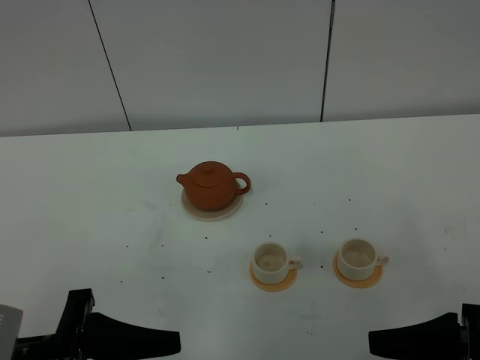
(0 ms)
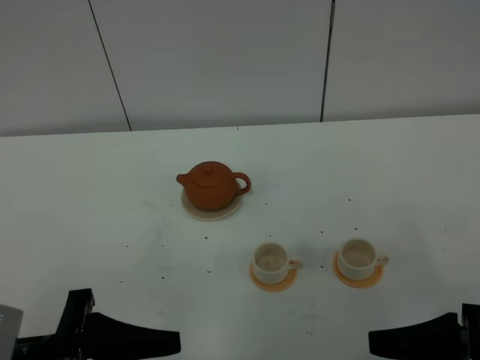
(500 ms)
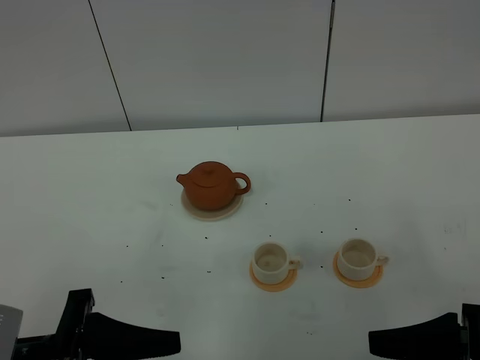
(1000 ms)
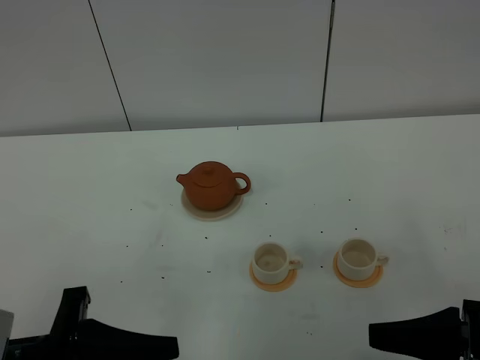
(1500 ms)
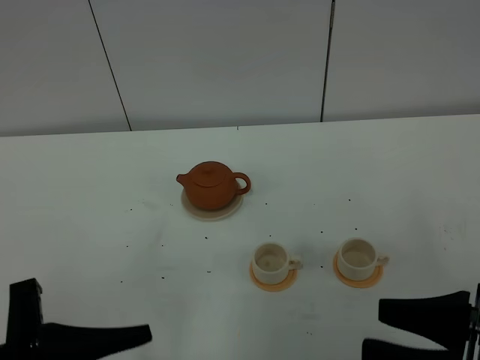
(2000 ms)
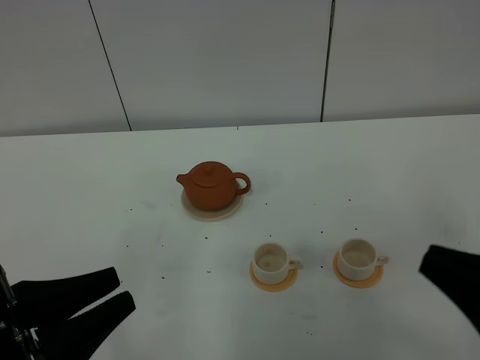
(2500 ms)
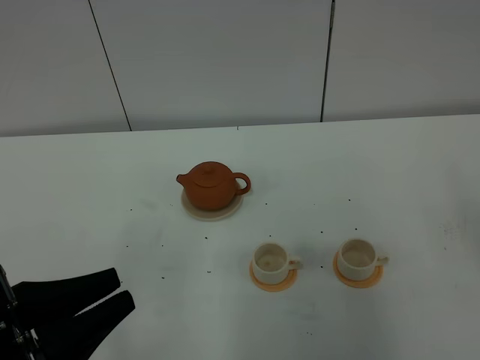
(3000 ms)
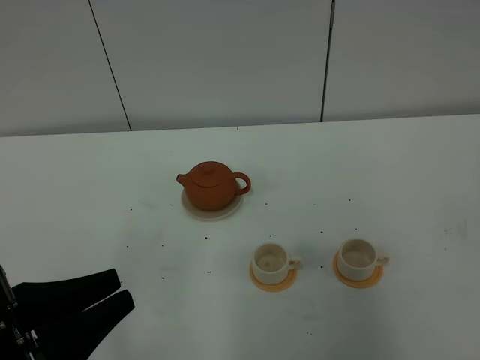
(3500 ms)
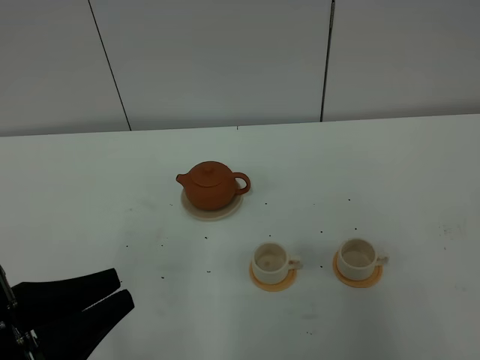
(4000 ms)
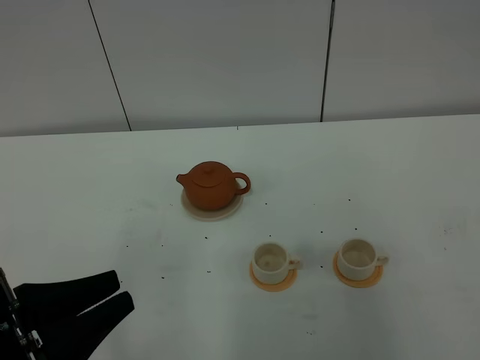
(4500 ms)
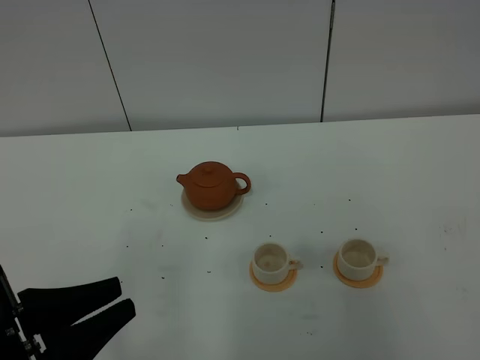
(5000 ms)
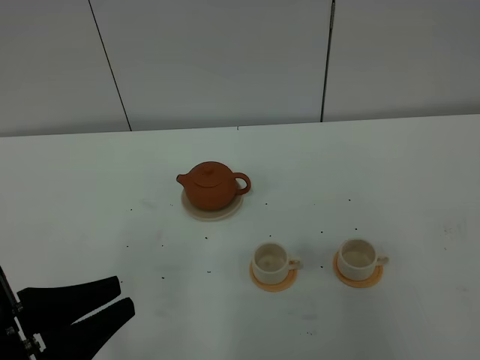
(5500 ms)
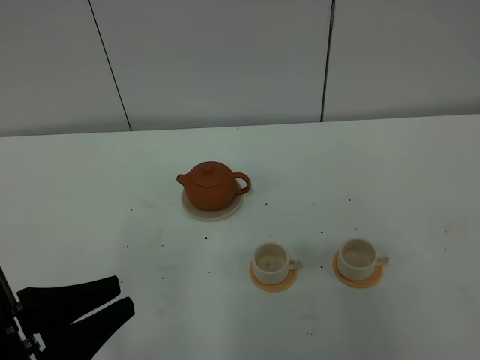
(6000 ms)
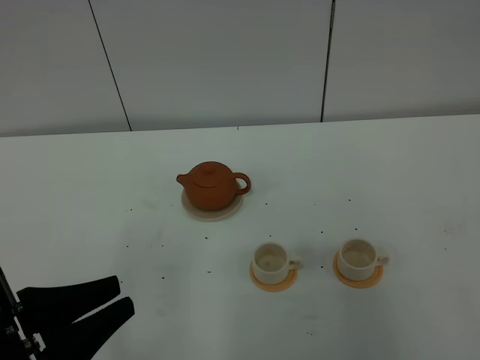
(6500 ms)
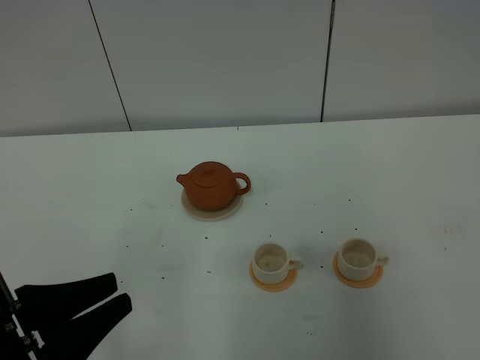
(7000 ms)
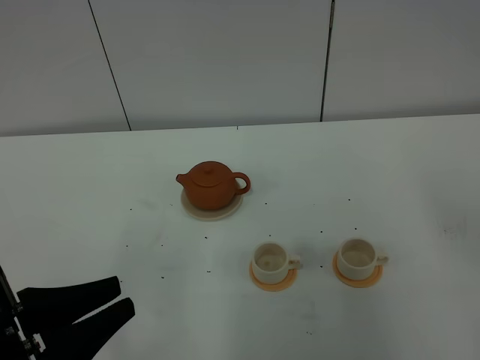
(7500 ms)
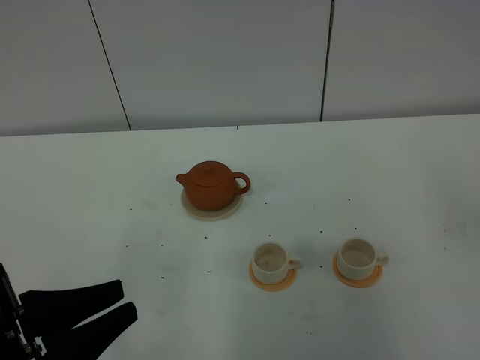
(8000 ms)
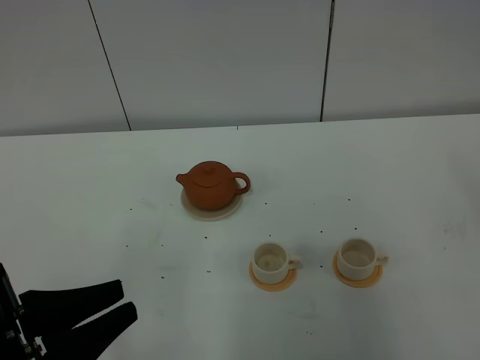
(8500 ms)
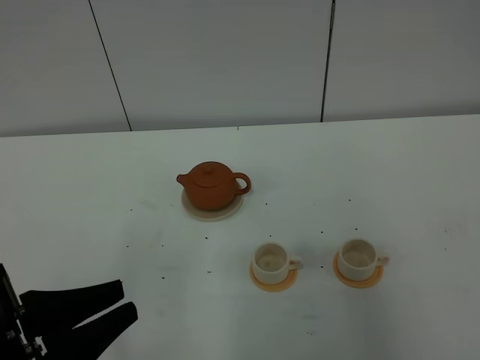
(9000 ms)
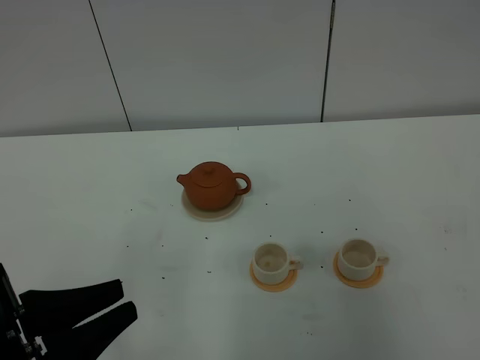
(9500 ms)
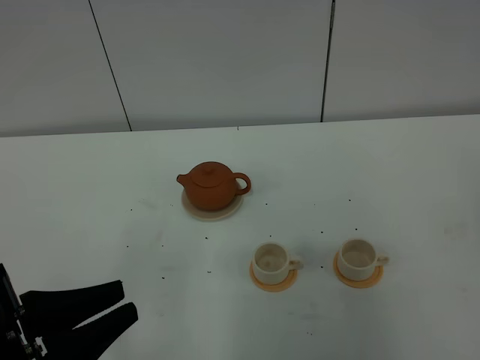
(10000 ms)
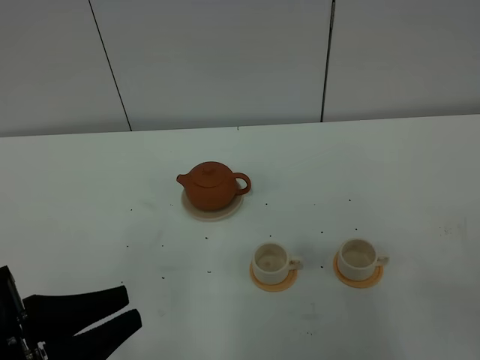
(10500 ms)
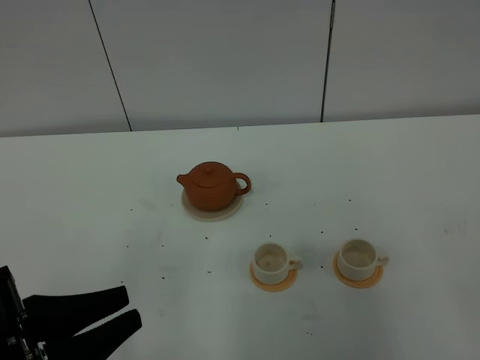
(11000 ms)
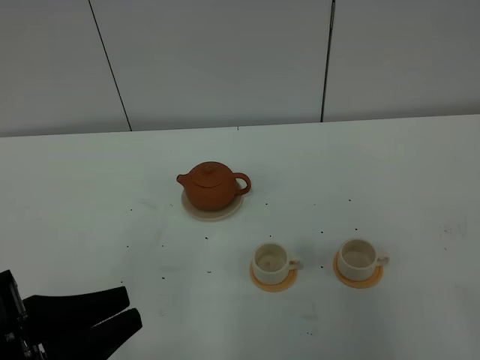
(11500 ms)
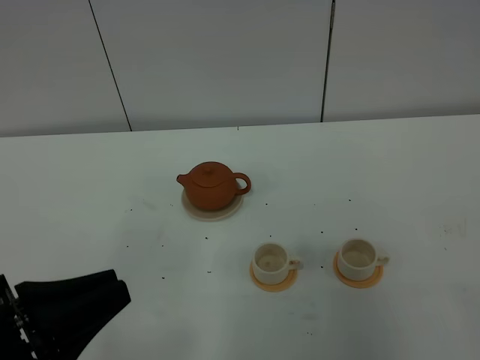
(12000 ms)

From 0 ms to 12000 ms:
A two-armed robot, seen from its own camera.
Task of the whole recording: grasp the brown teapot and pour the tea into the two white teacups one by one, put the brown teapot back in its original place.
From 0 ms to 2000 ms: The grippers stay close to where they were, moving slightly.
From 2000 ms to 4000 ms: The right gripper travels to the right and upward by about 15 cm, and closes.

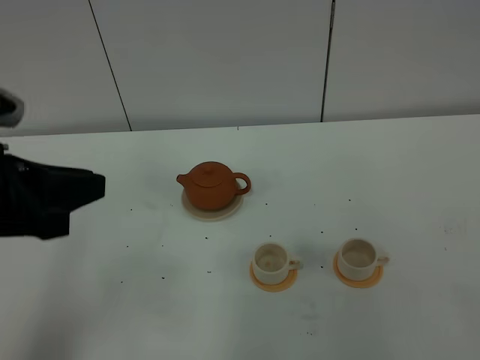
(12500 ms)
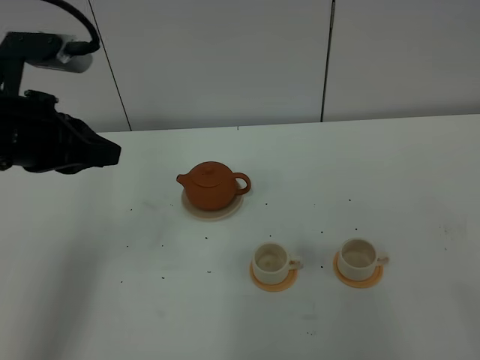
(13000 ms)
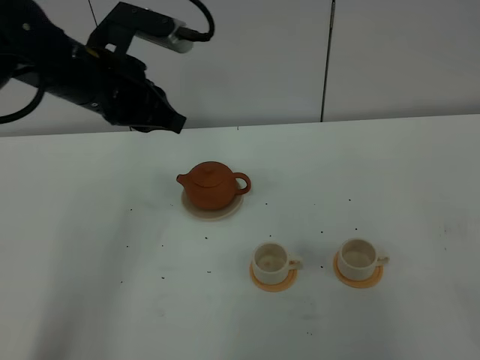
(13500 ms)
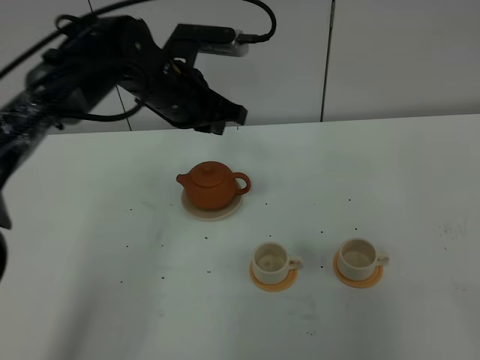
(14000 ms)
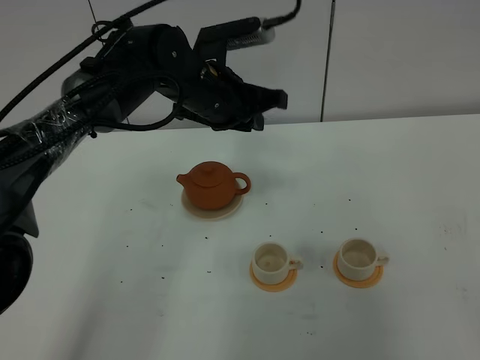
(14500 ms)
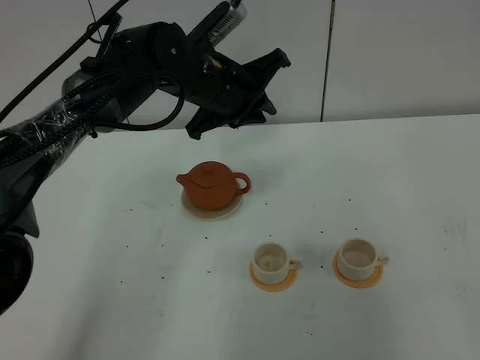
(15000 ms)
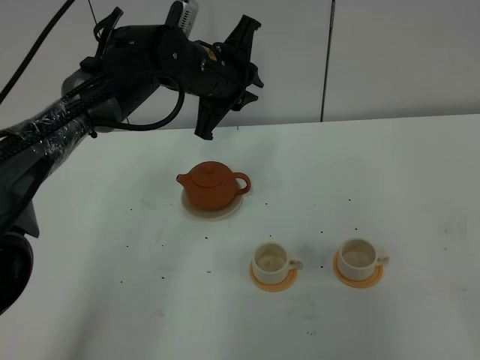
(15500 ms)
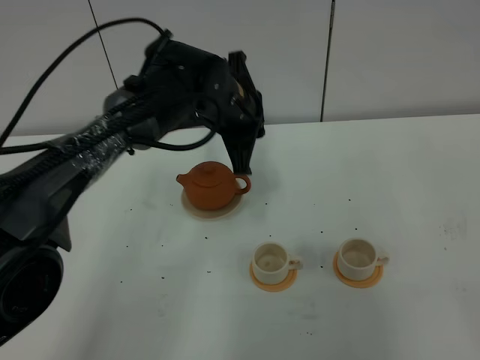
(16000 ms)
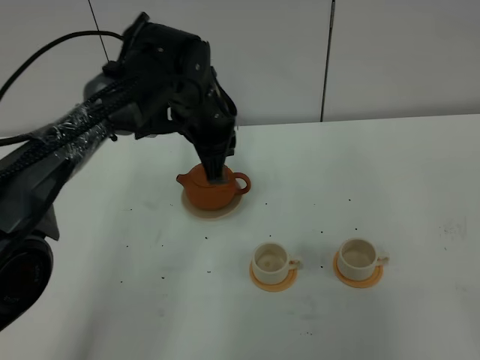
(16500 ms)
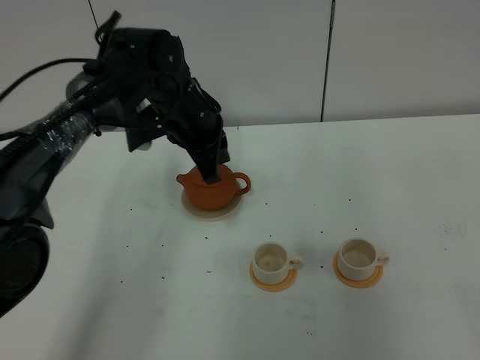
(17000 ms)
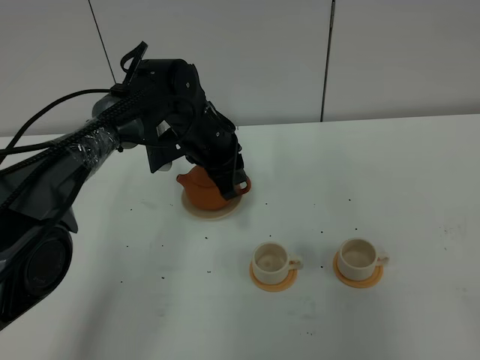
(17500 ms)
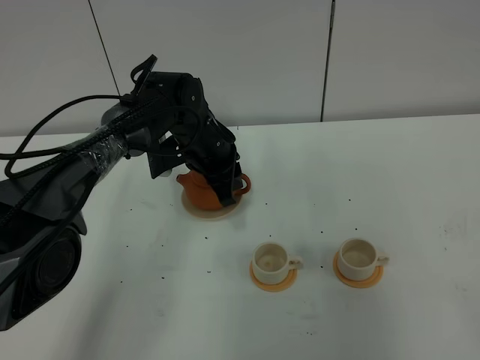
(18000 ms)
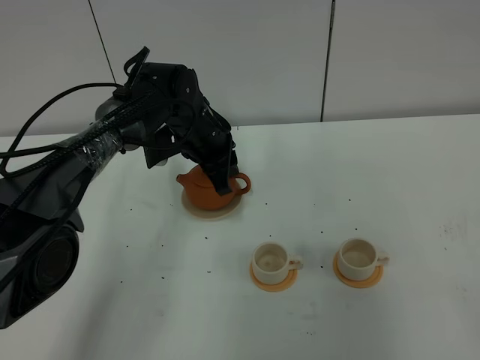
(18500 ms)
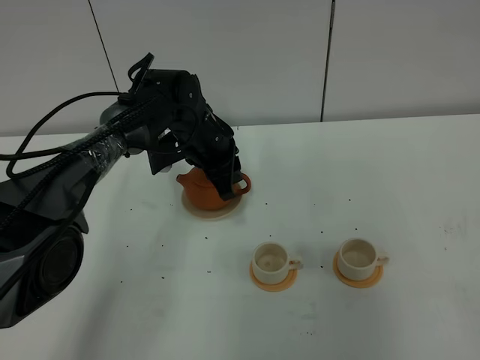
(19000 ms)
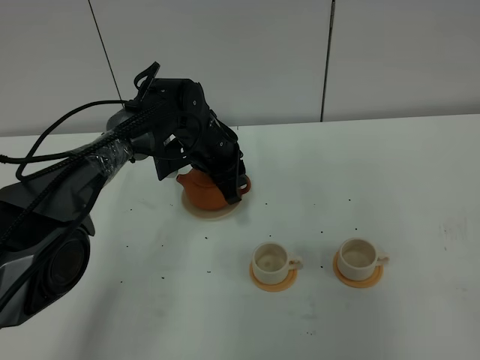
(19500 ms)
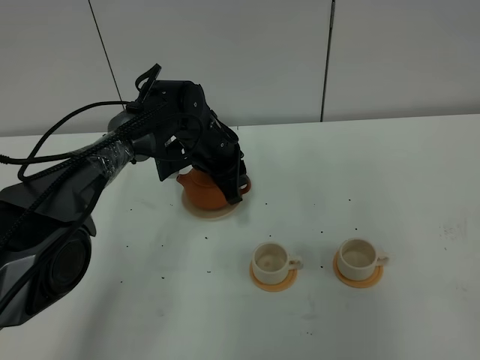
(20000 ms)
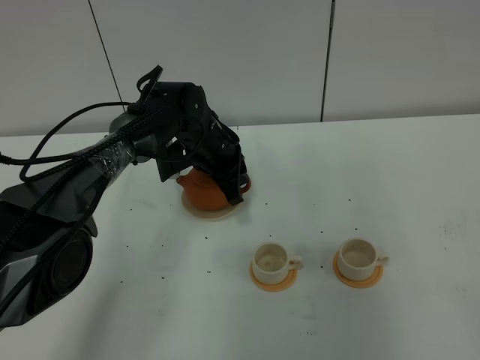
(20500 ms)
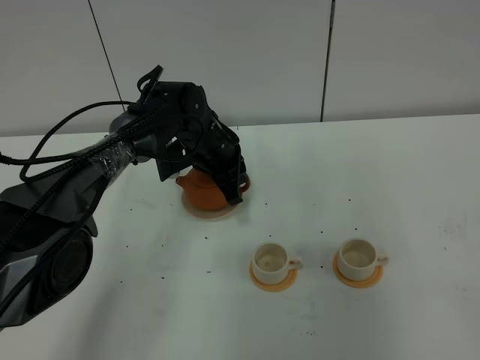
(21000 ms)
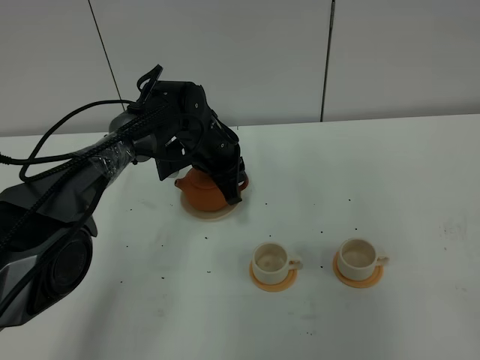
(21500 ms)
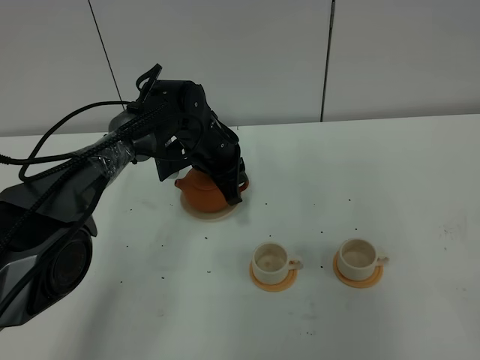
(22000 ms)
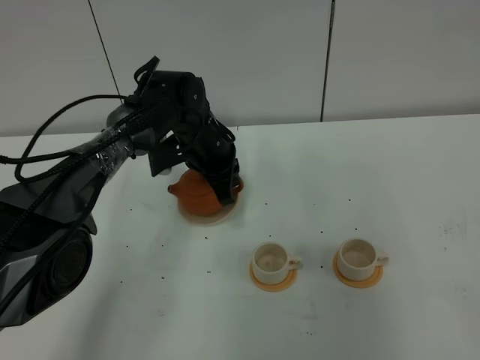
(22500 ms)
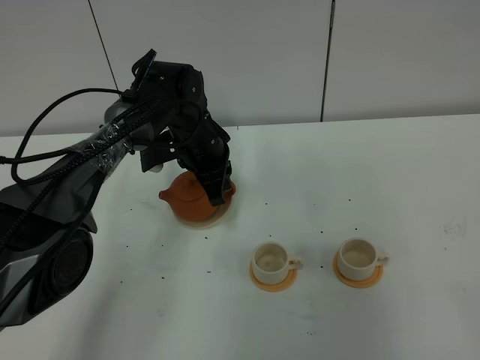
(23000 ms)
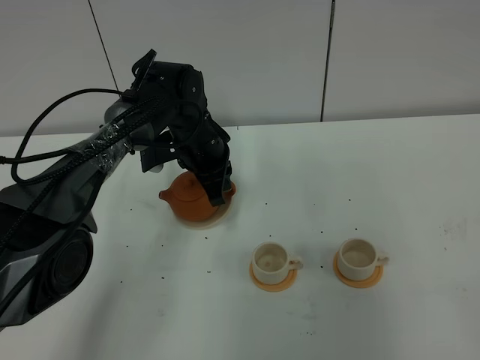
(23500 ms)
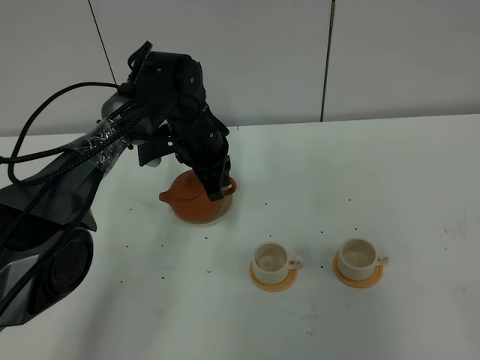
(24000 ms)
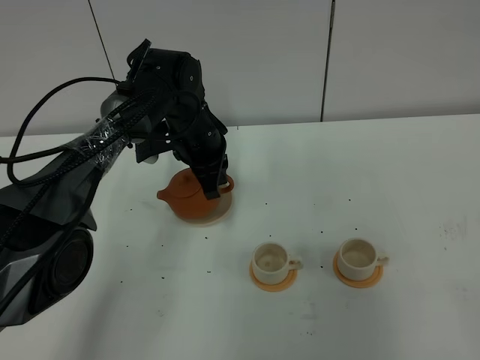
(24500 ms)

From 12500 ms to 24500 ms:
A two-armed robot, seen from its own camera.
Task of the whole recording: grasp the brown teapot and pour the tea into the two white teacups one by one, put the brown teapot back in its original place.
From 12500 ms to 14500 ms: The left gripper moves forward and to the right, roughly 30 cm.
From 16500 ms to 18500 ms: The left gripper heads downward, covering some 5 cm, and opens.
From 18500 ms to 20500 ms: The grippers make only small movements.
From 20500 ms to 22500 ms: The left gripper closes.
From 22500 ms to 24500 ms: There are only small adjustments of the grippers.

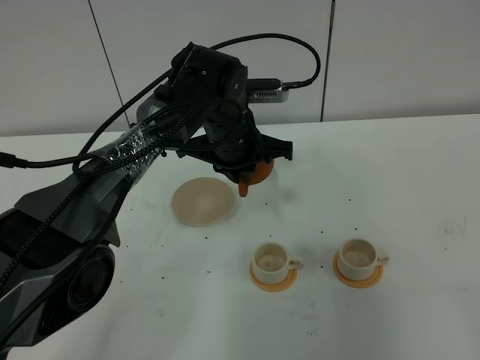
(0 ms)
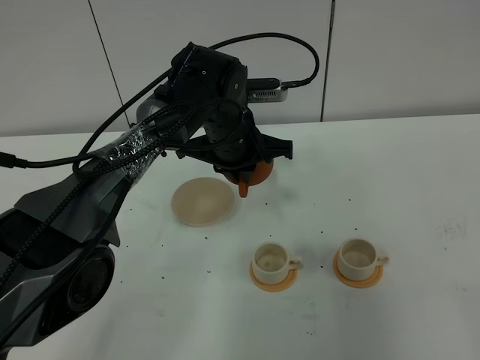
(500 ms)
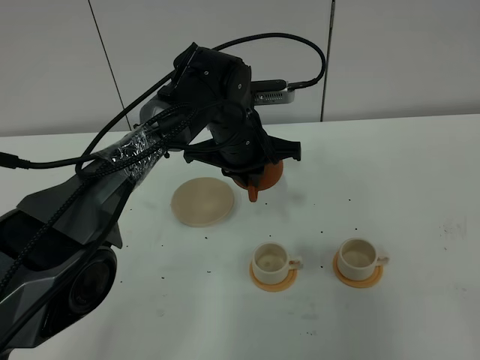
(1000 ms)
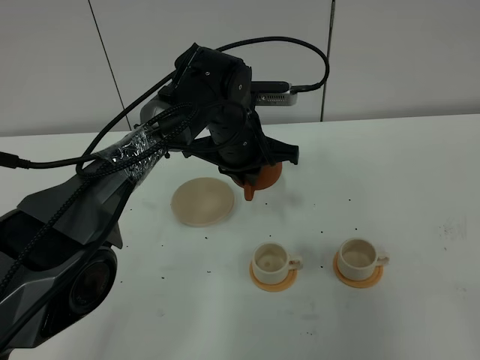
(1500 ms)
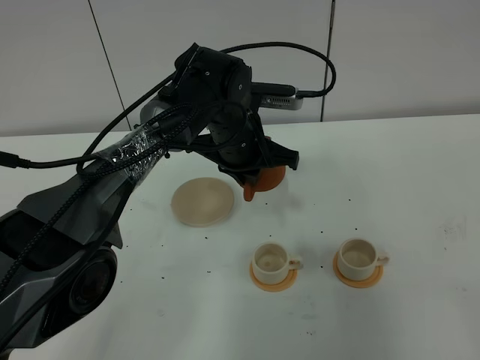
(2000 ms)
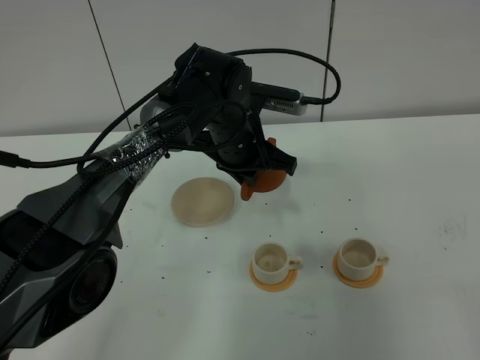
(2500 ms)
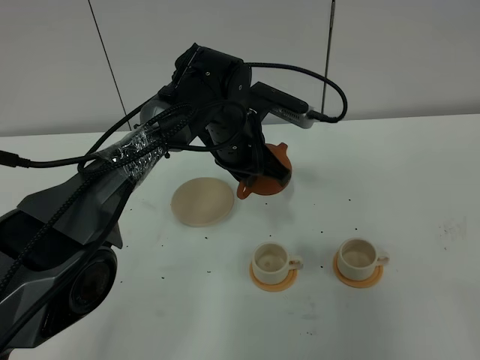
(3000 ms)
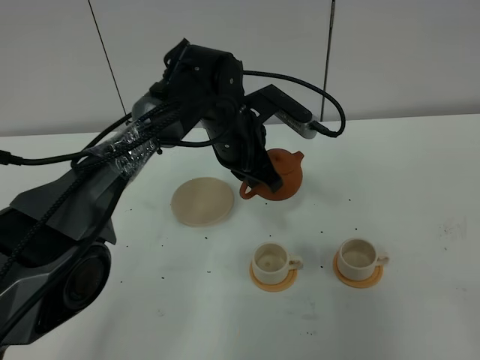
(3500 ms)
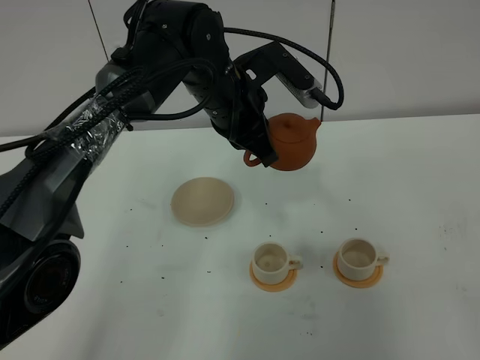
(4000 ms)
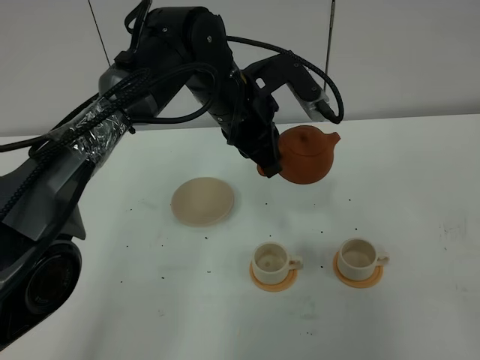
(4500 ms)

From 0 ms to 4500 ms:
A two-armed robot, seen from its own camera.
Task of the whole recording: grasp the brown teapot and pour the tea into the two white teacups one by one, put the brown teapot back in its original place.
From 0 ms to 2000 ms: The grippers stay close to where they were, moving slightly.
From 2000 ms to 4500 ms: The left gripper travels upward by approximately 5 cm.
